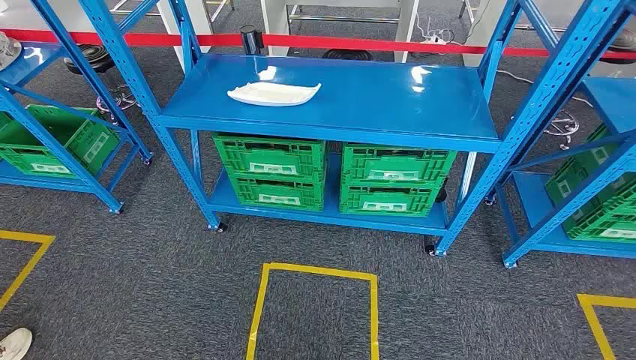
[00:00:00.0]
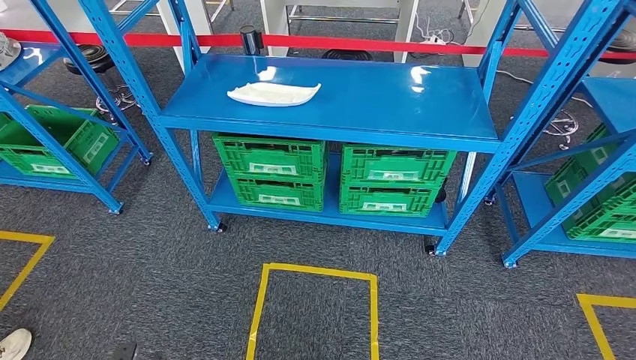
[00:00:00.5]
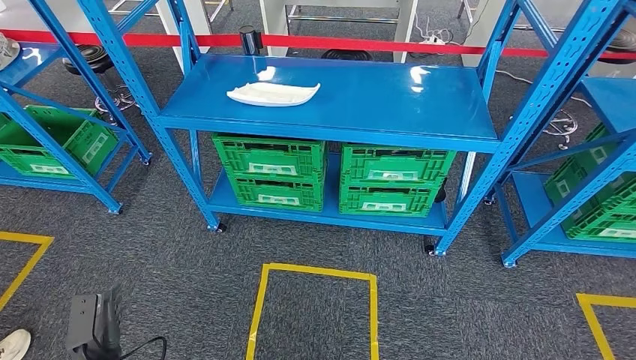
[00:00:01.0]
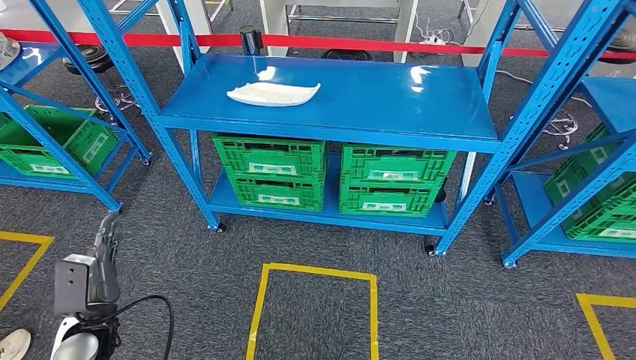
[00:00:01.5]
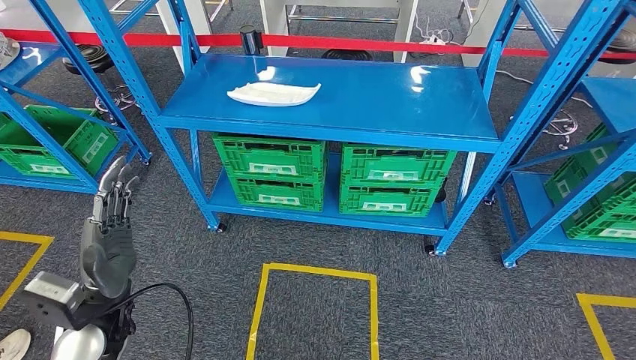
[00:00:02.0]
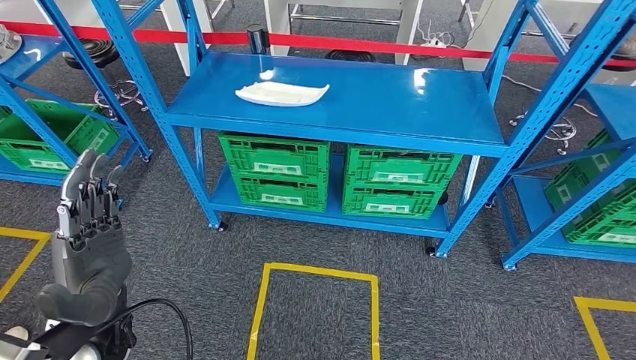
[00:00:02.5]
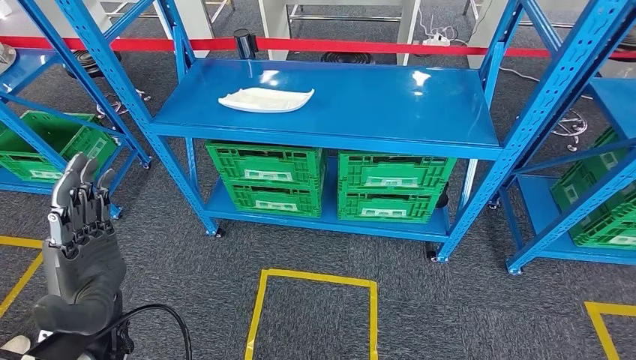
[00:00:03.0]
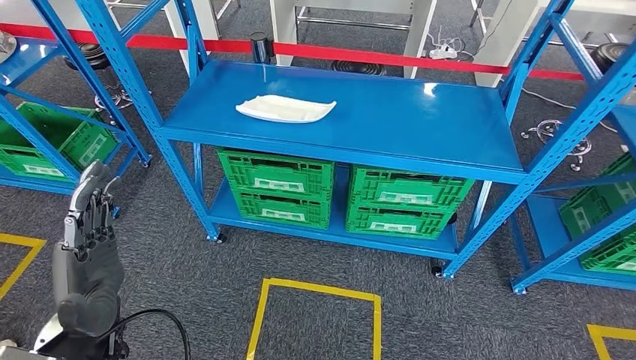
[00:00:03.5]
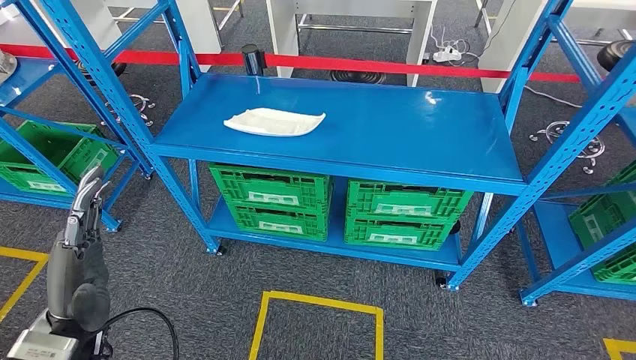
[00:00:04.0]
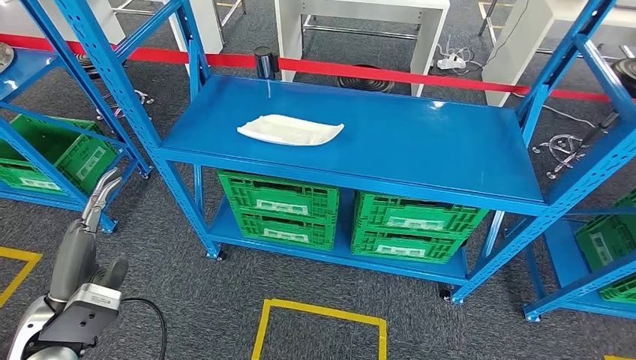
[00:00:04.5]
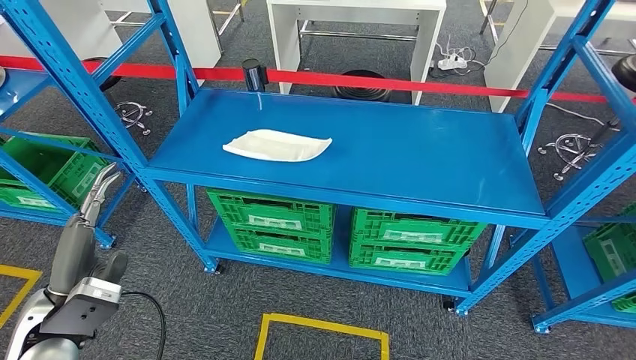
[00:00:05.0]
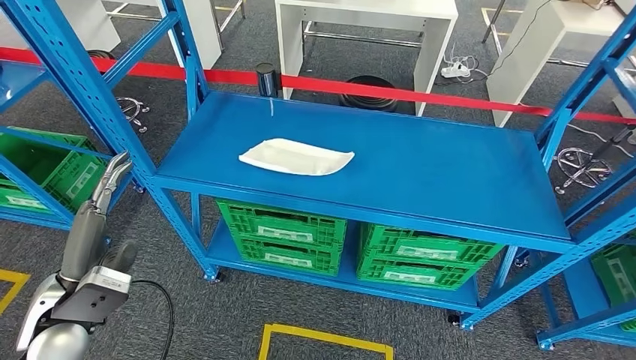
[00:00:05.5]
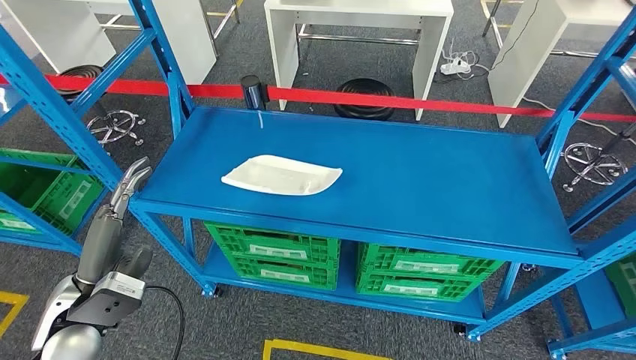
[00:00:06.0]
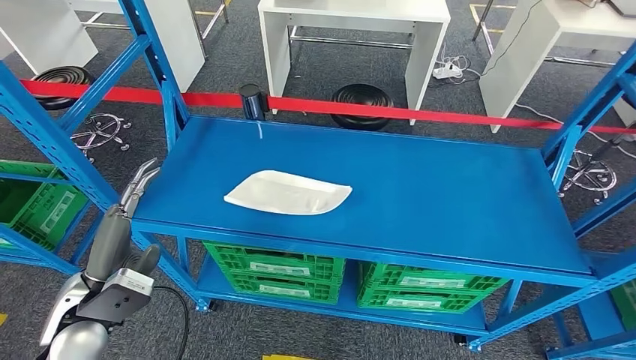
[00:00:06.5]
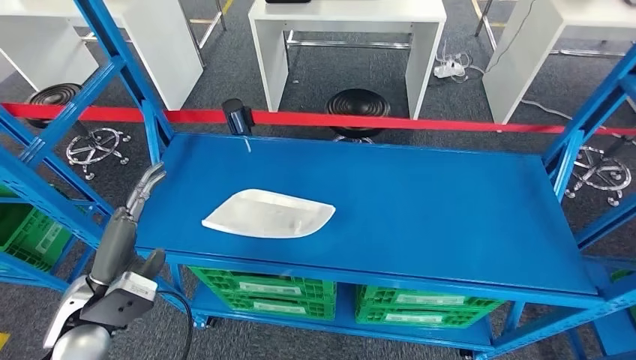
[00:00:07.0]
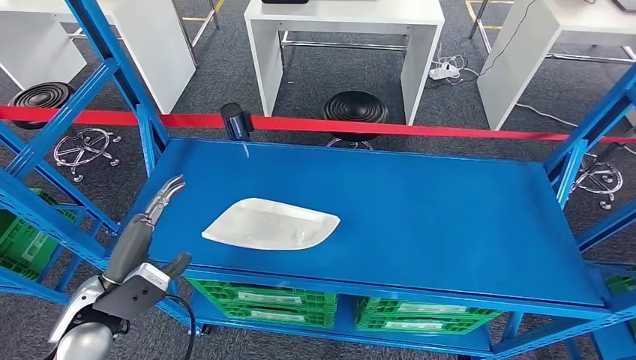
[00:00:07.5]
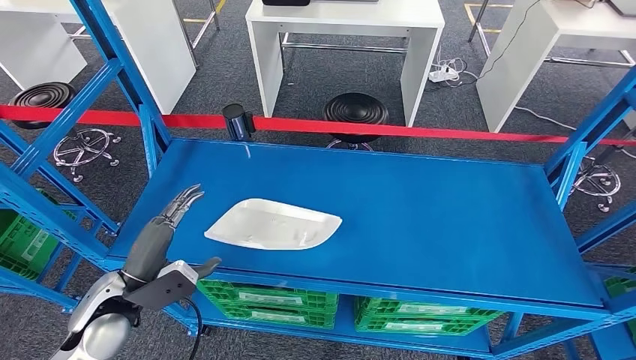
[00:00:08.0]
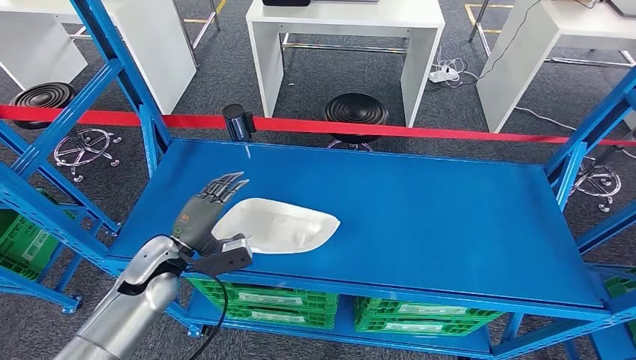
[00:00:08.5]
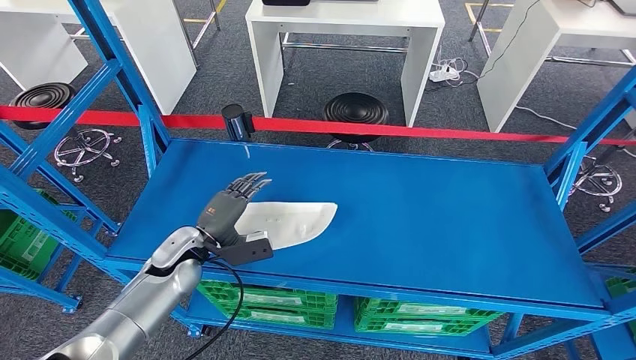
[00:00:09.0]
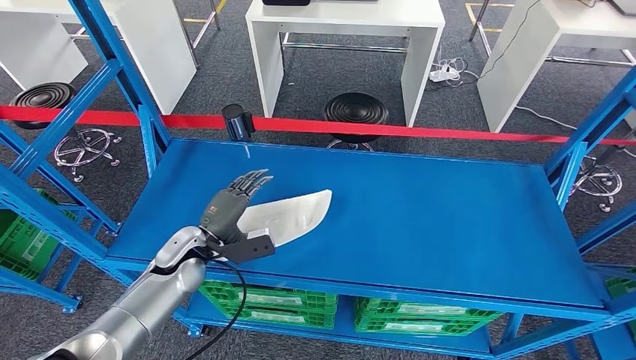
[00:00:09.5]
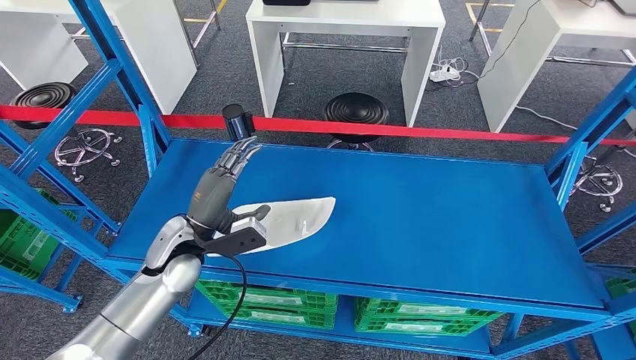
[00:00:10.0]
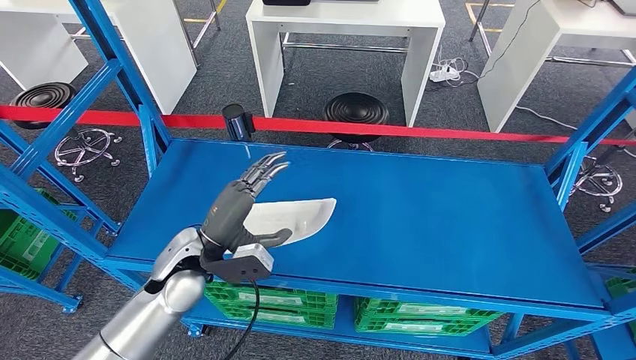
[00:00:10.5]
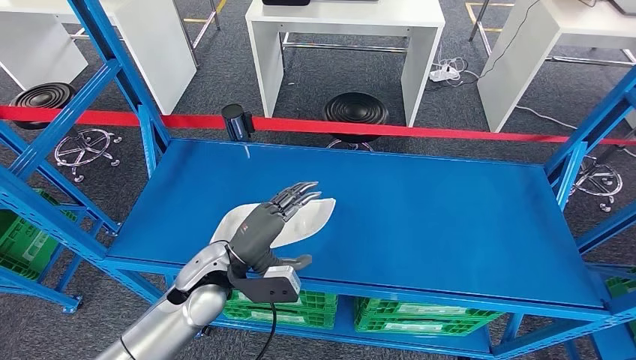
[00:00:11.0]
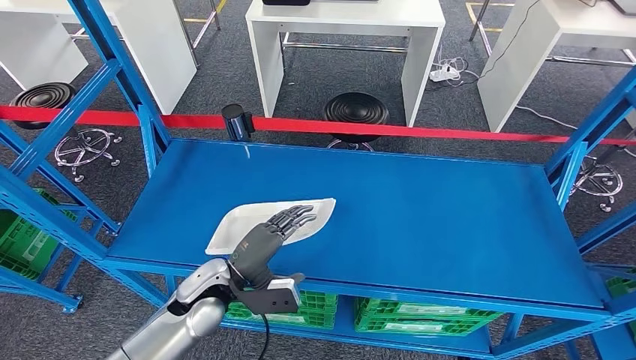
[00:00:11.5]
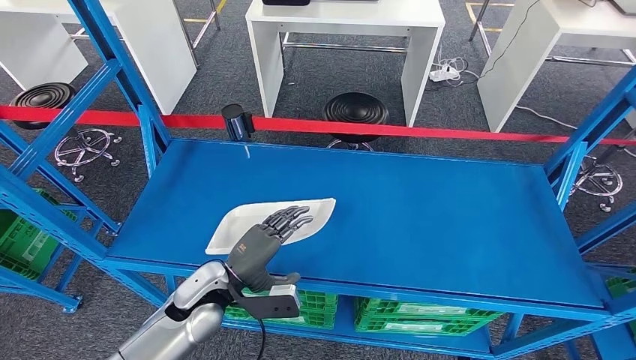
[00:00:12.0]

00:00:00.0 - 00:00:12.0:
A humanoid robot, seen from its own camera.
00:00:08.0 - 00:00:10.0: The left hand shifts some 15 cm forward and to the right.
00:00:10.0 - 00:00:12.0: The left hand shifts some 5 cm backward.

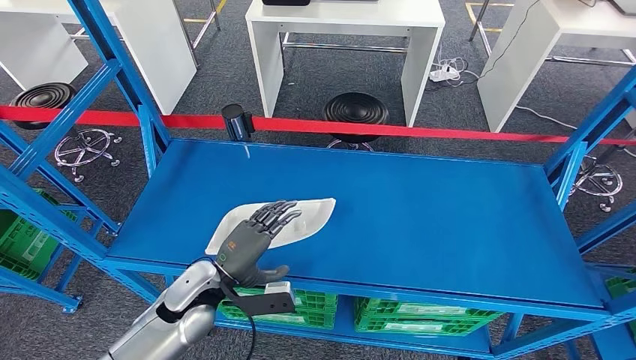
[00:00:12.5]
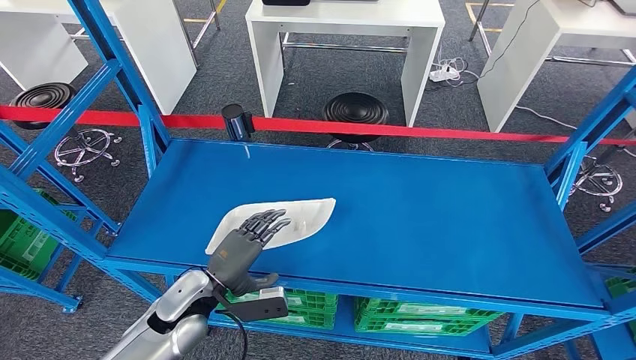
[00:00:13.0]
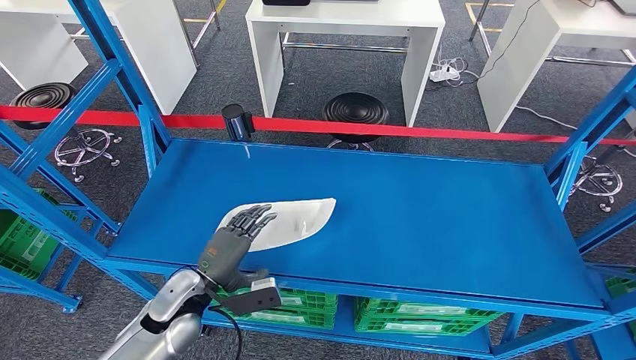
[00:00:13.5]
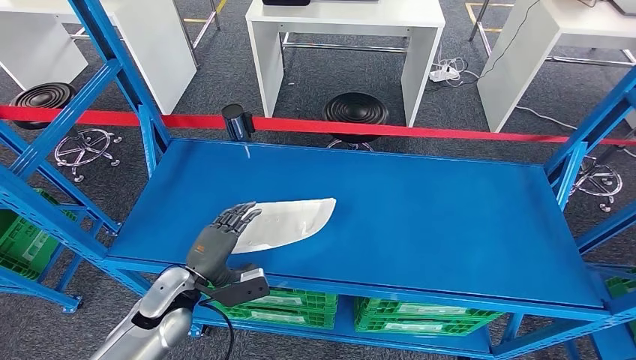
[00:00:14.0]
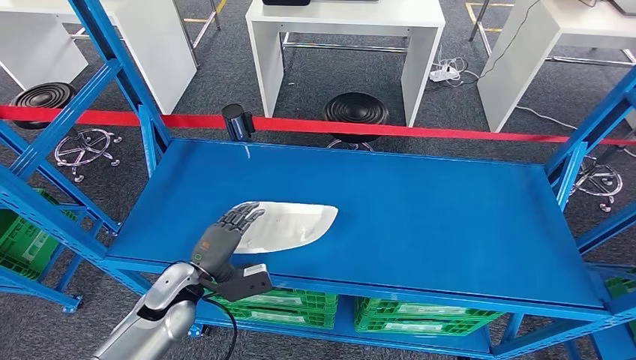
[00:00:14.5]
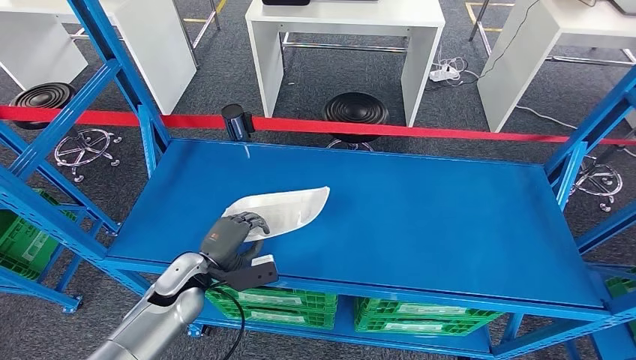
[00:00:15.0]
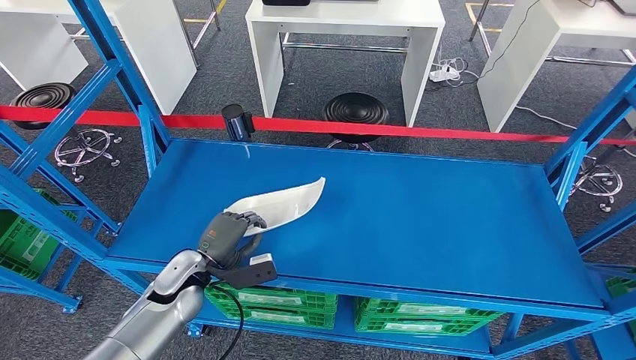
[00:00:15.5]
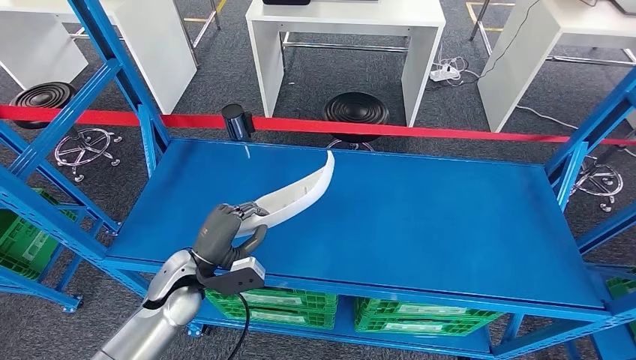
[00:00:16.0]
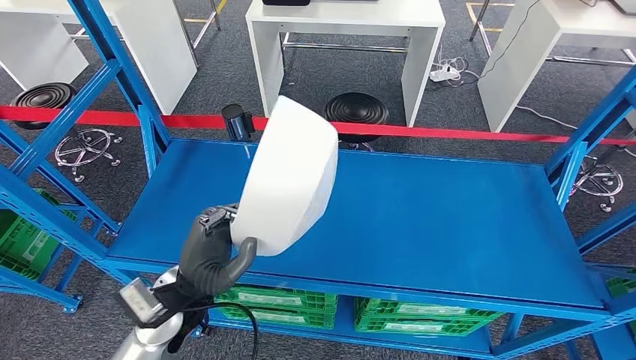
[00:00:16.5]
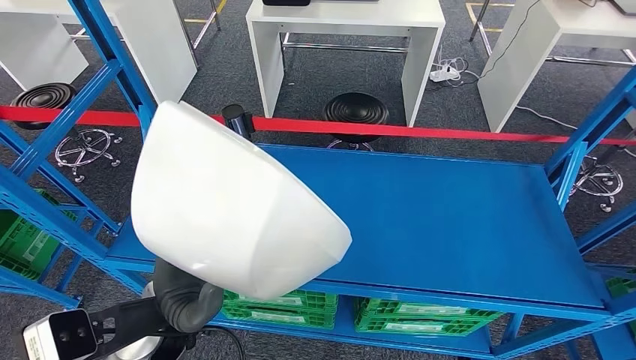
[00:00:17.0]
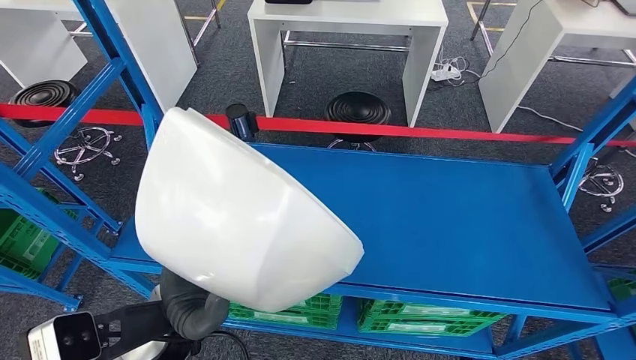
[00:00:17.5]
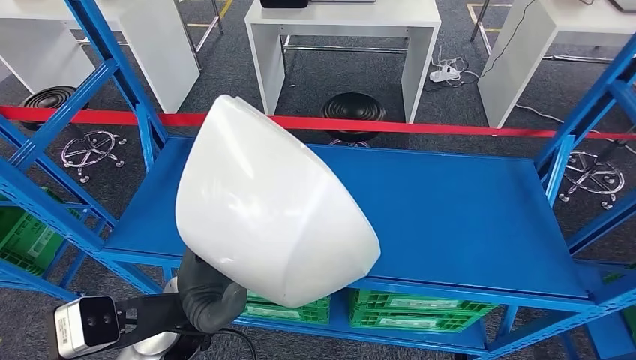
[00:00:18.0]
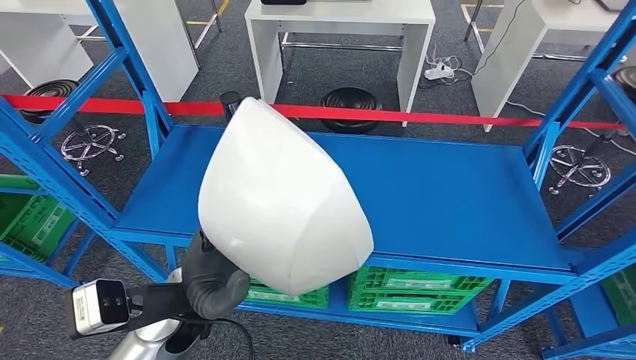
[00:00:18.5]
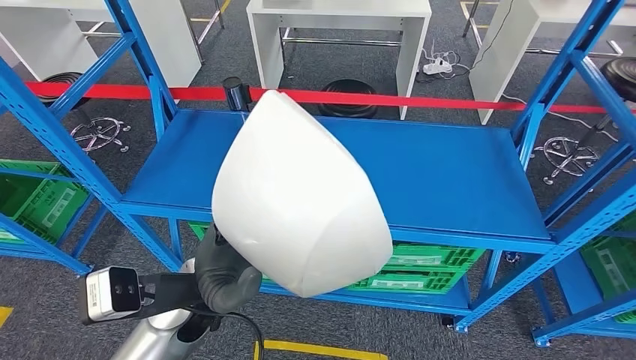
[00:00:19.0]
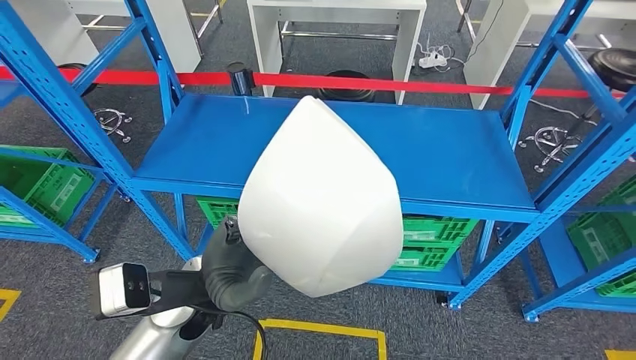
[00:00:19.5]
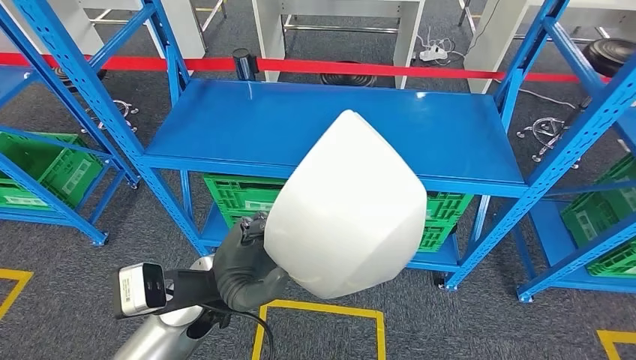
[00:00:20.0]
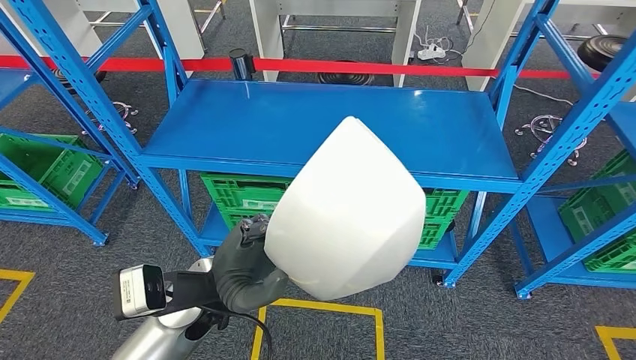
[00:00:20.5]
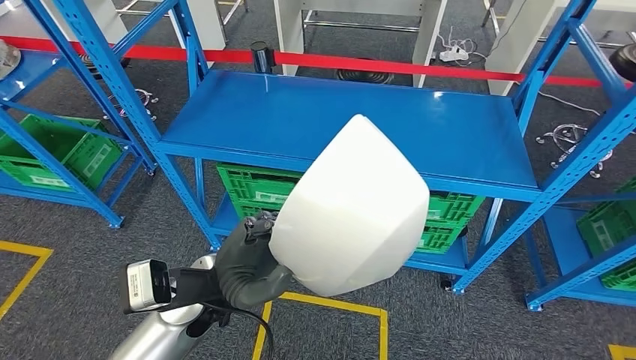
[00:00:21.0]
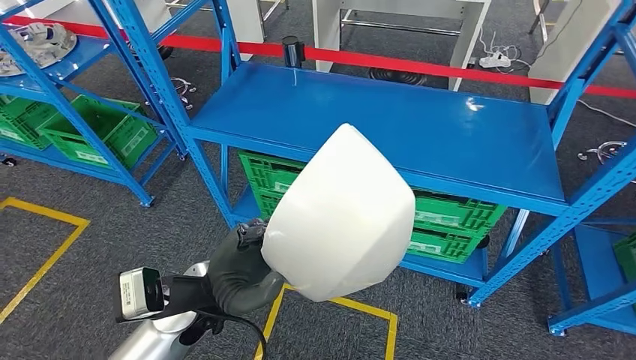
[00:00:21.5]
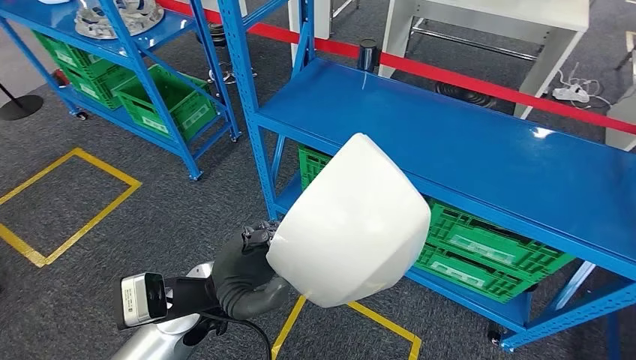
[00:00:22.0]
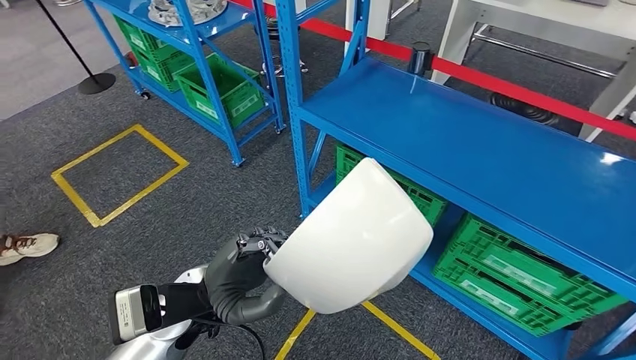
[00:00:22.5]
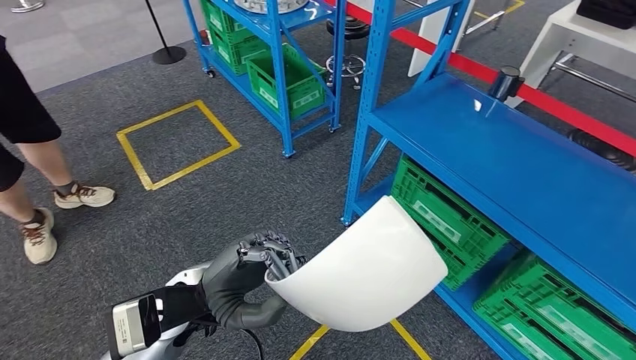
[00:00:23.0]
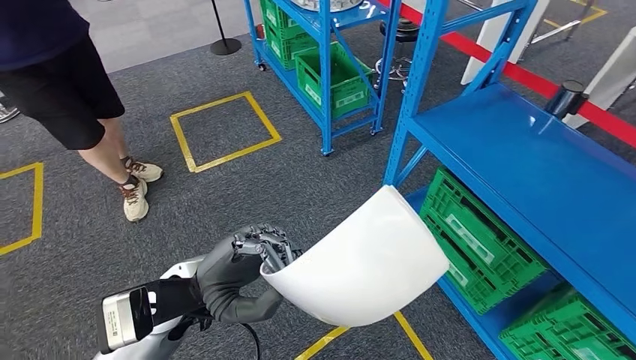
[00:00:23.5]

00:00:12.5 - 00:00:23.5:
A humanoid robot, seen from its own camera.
Step, 00:00:12.5 - 00:00:17.5: Pick up the small component from the shelf.
00:00:12.5 - 00:00:14.5: The left hand is displaced to the left by approximately 5 cm.
